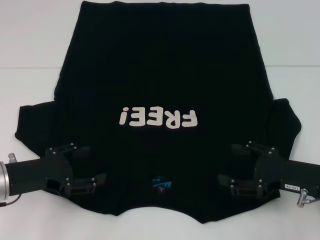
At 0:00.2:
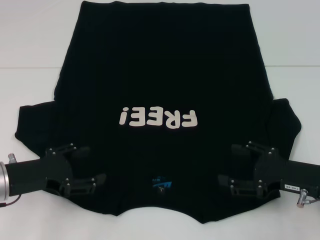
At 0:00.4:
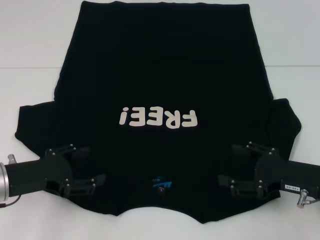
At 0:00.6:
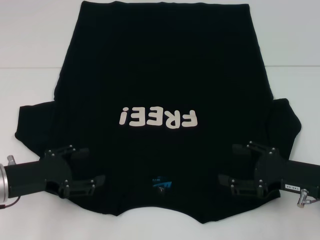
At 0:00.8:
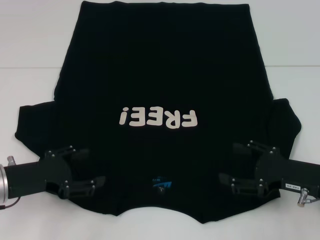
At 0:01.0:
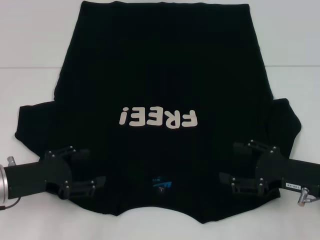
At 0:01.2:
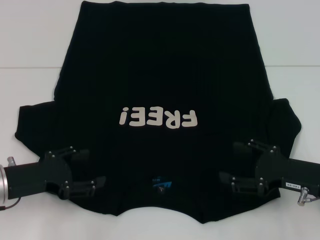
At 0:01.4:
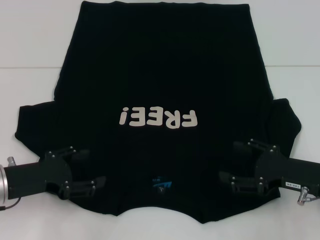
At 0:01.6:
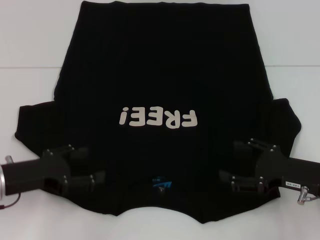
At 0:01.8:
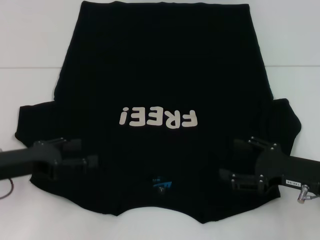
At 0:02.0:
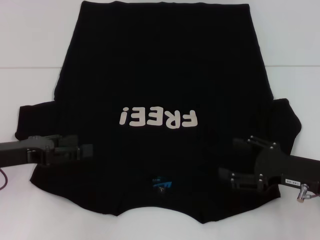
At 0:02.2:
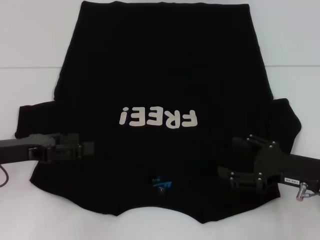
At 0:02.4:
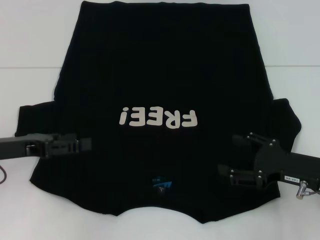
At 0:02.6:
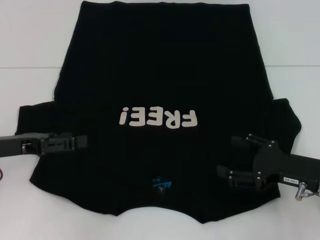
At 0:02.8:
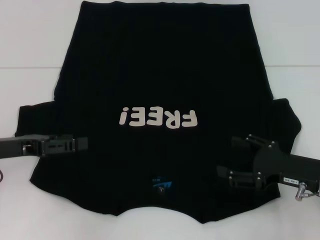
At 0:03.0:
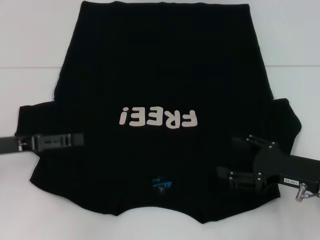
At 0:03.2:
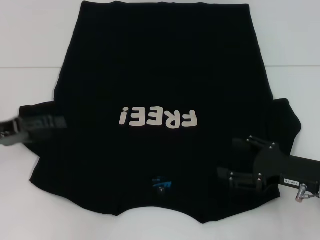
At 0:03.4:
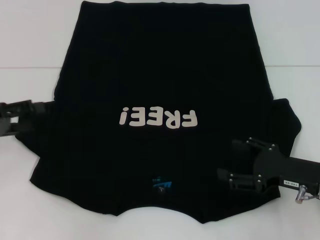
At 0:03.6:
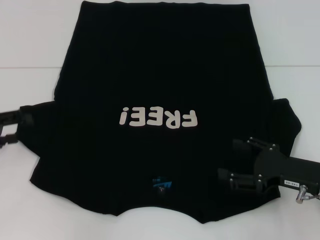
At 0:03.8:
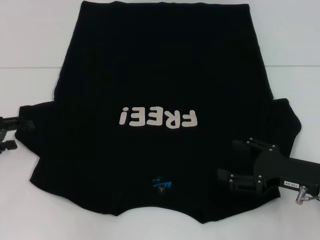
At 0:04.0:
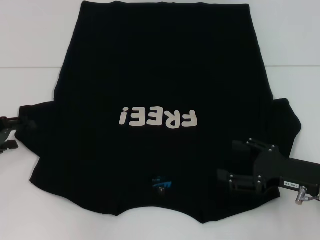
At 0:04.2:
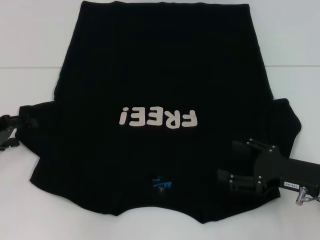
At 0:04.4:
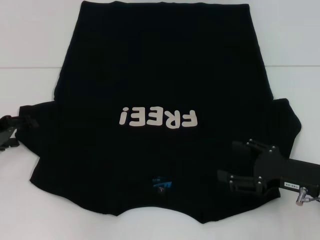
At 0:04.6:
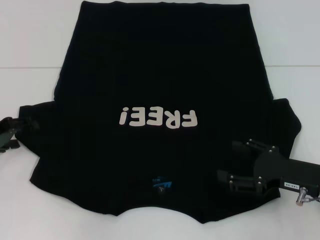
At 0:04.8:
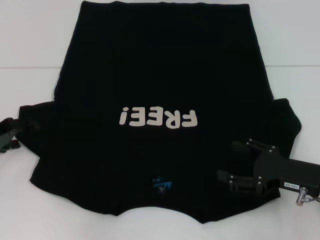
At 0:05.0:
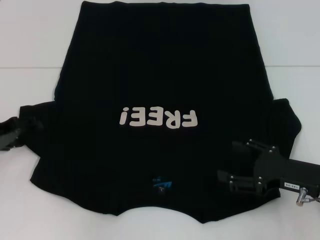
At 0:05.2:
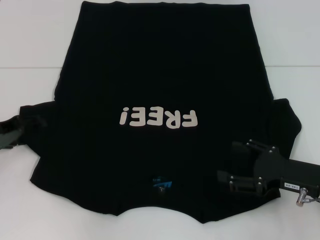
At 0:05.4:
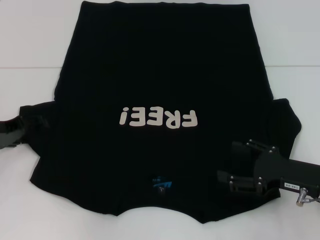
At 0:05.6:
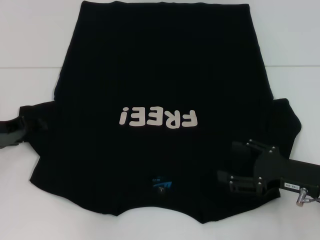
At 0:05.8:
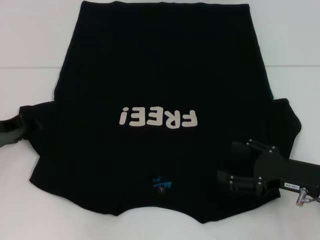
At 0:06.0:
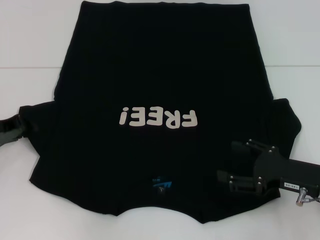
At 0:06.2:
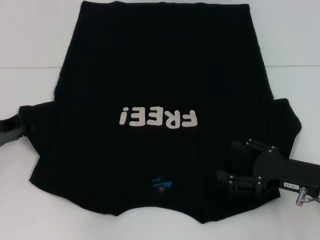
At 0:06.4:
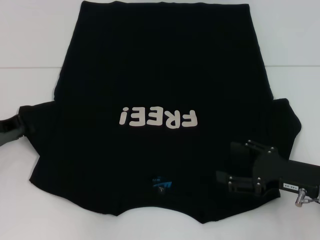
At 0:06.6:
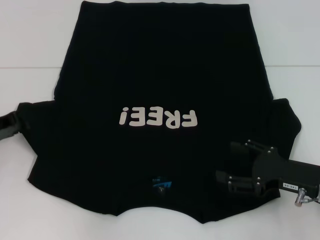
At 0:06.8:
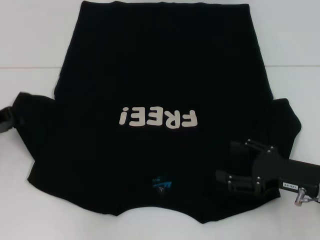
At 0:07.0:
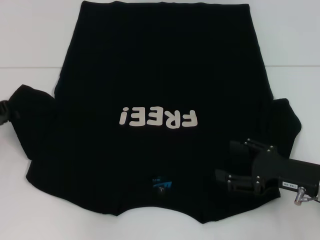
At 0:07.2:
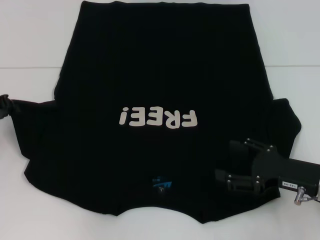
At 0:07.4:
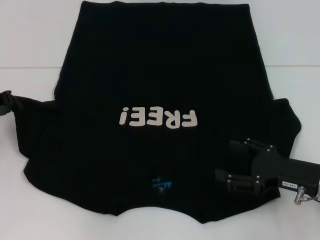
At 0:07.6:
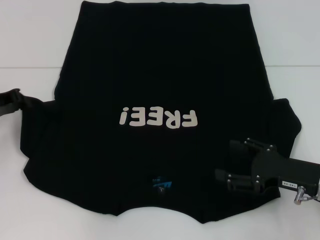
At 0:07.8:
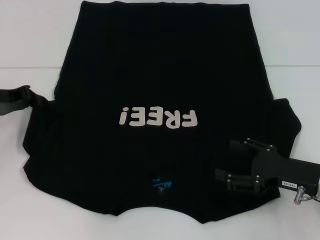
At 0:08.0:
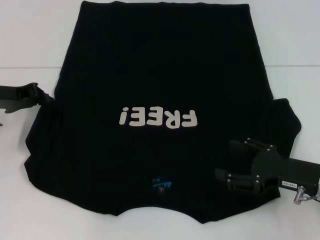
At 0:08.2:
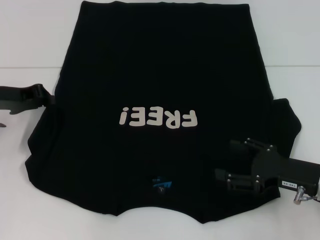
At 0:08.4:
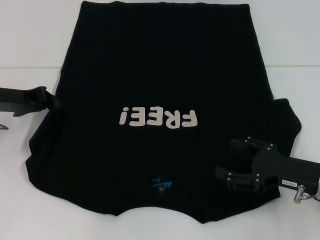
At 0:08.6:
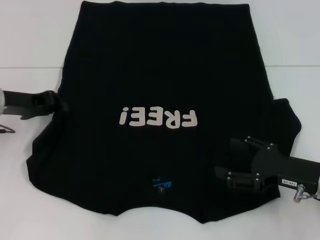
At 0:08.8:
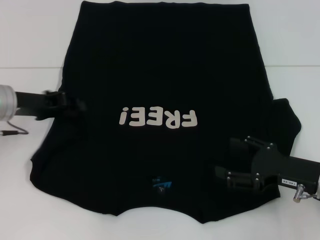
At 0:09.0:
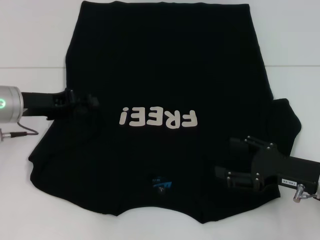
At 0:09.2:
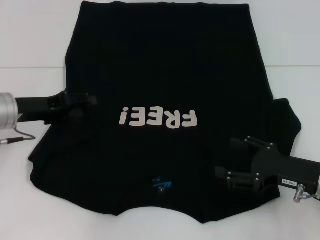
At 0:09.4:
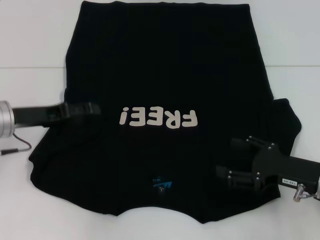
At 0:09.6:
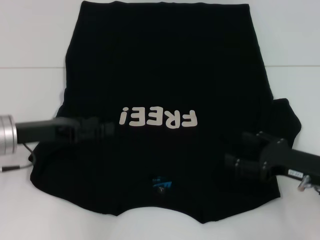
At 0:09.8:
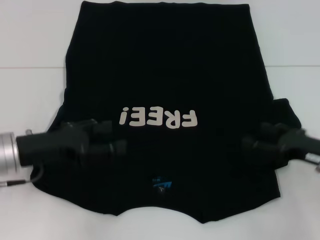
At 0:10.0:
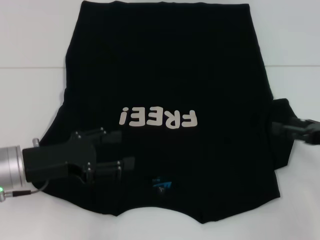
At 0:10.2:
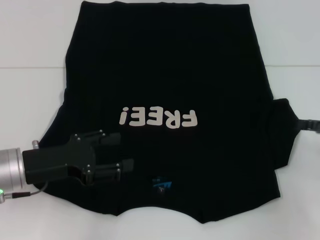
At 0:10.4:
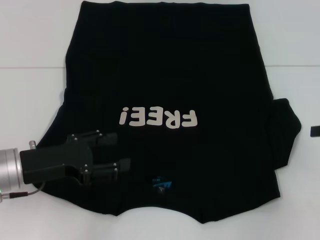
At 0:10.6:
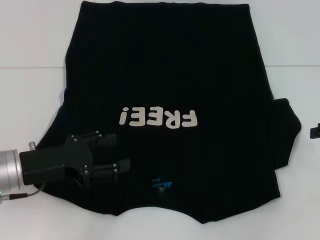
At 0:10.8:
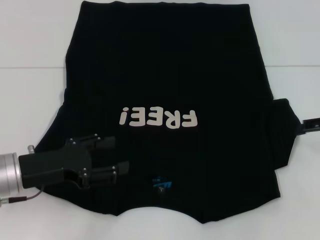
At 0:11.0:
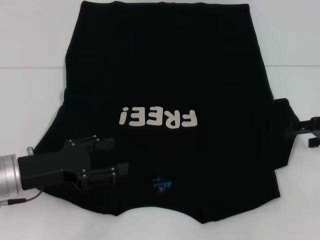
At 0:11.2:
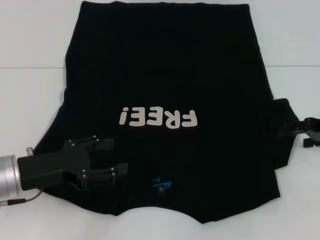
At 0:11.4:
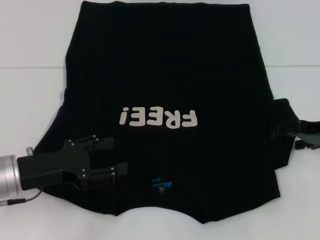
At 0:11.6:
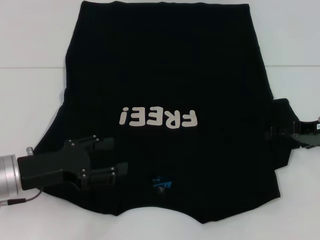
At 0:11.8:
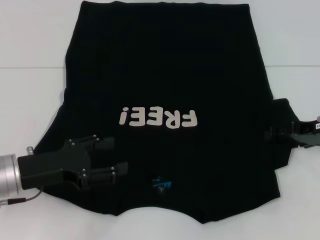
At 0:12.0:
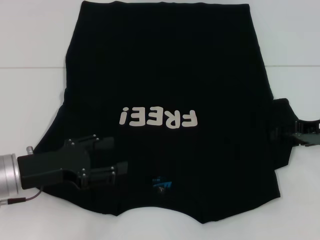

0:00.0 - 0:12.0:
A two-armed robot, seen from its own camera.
Step, 0:00.0 - 0:09.6: Fold the bottom left sleeve with your left hand.
0:00.0 - 0:01.6: The grippers make only small movements.
0:01.6 - 0:03.0: The left gripper ends up about 5 cm from where it was.
0:03.0 - 0:04.4: The left gripper moves about 5 cm.
0:04.4 - 0:06.0: The left gripper closes up.
0:06.0 - 0:07.6: The left gripper closes.
0:07.6 - 0:09.0: The left gripper heads to the right, covering about 5 cm.
0:09.0 - 0:10.4: The right gripper is displaced to the right and upward by approximately 15 cm; the left gripper heads backward, covering approximately 10 cm, and opens its fingers.
0:10.4 - 0:12.0: The right gripper travels to the left and forward by some 10 cm.

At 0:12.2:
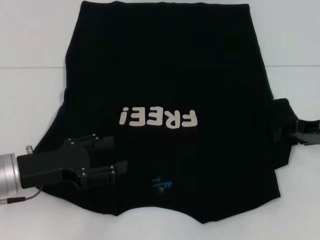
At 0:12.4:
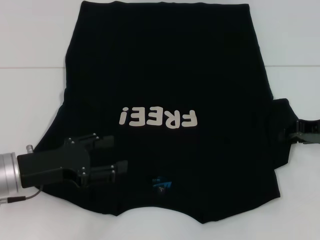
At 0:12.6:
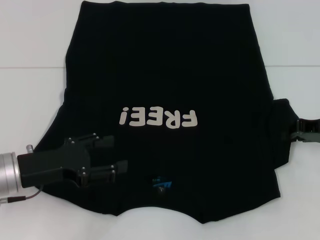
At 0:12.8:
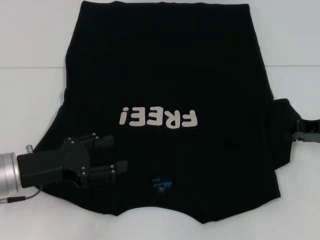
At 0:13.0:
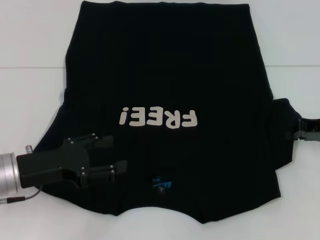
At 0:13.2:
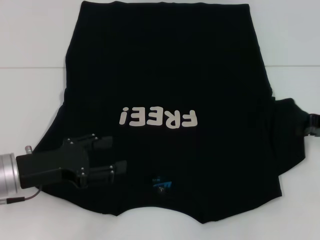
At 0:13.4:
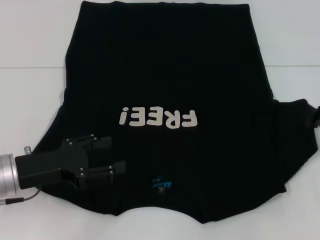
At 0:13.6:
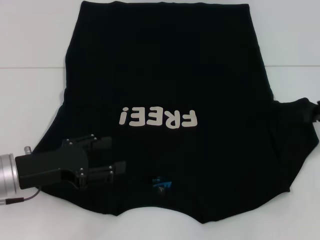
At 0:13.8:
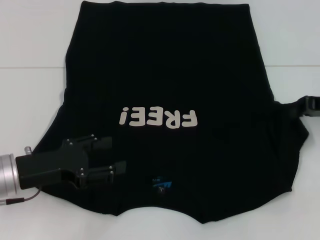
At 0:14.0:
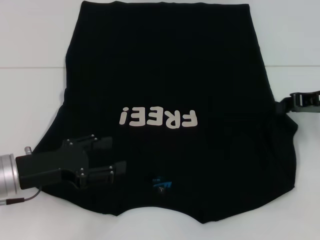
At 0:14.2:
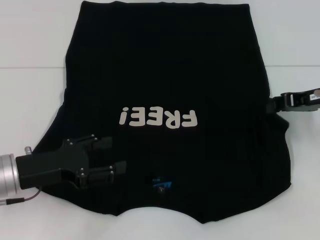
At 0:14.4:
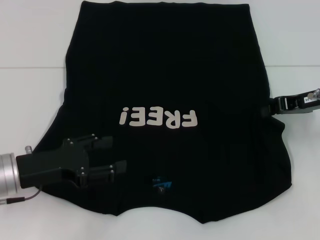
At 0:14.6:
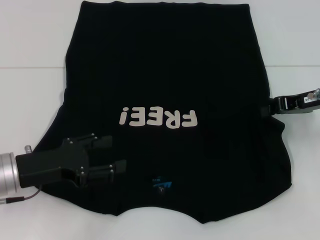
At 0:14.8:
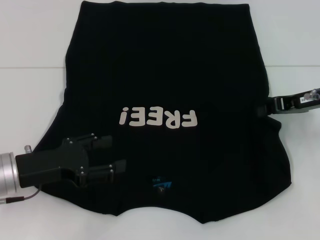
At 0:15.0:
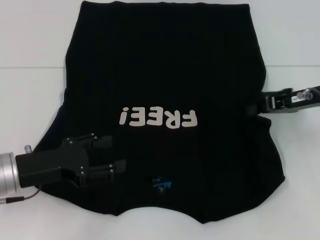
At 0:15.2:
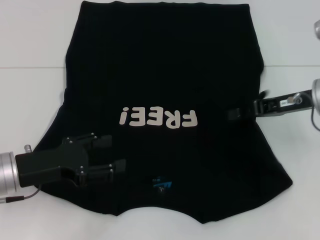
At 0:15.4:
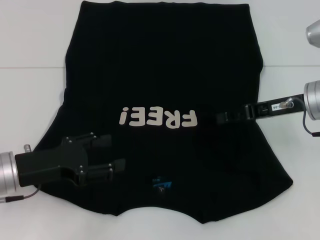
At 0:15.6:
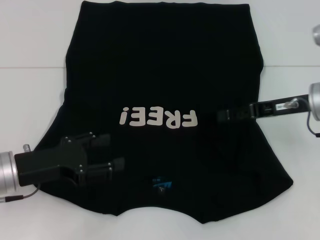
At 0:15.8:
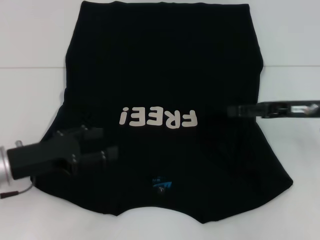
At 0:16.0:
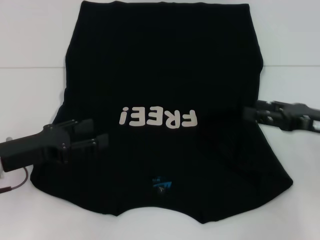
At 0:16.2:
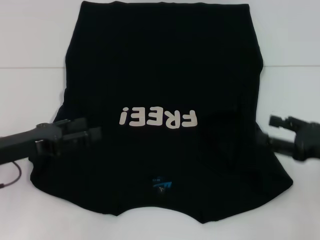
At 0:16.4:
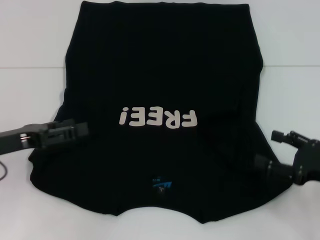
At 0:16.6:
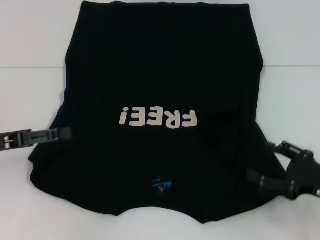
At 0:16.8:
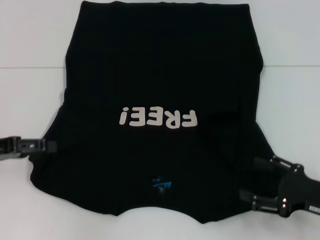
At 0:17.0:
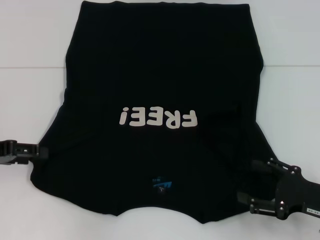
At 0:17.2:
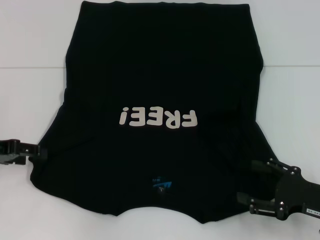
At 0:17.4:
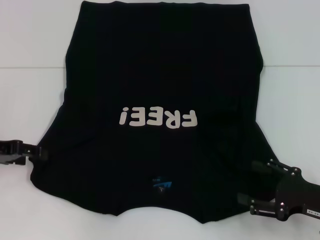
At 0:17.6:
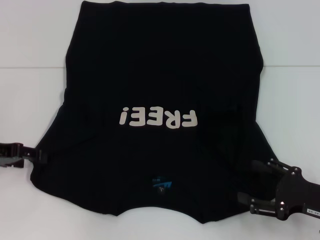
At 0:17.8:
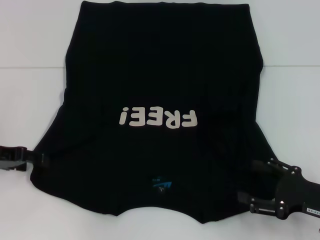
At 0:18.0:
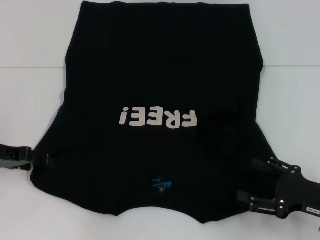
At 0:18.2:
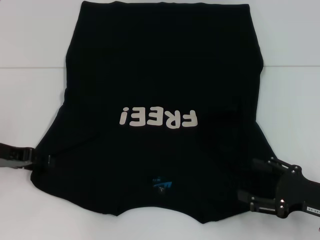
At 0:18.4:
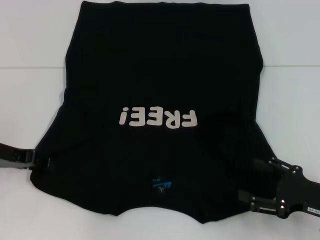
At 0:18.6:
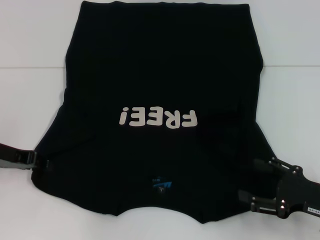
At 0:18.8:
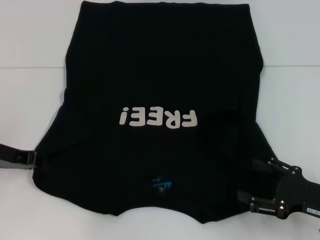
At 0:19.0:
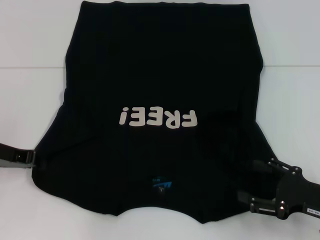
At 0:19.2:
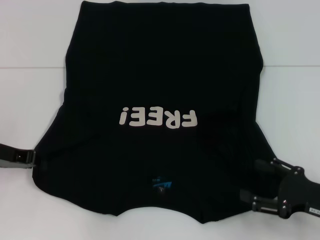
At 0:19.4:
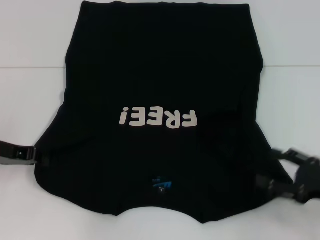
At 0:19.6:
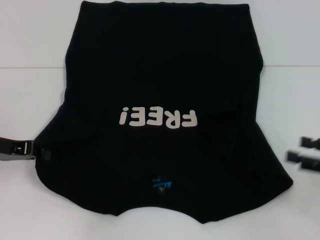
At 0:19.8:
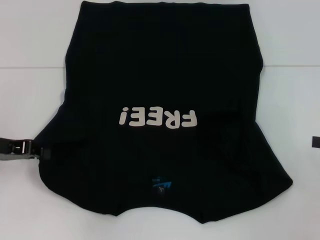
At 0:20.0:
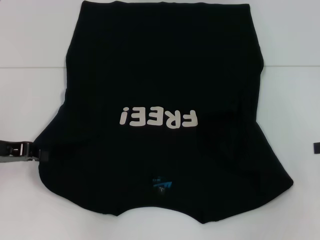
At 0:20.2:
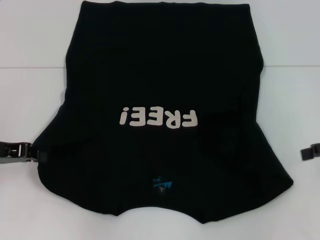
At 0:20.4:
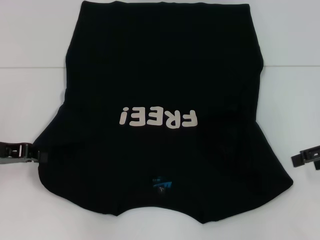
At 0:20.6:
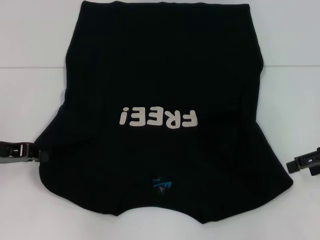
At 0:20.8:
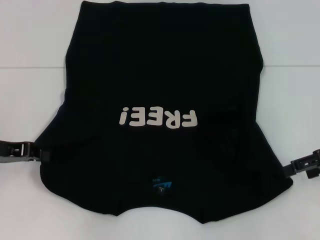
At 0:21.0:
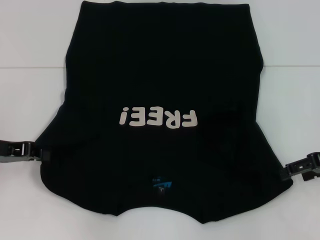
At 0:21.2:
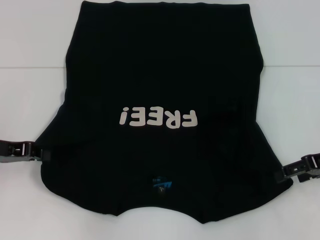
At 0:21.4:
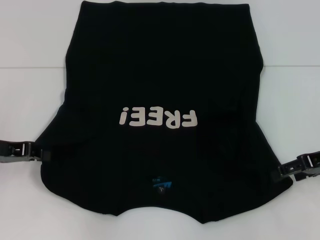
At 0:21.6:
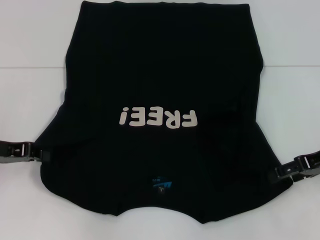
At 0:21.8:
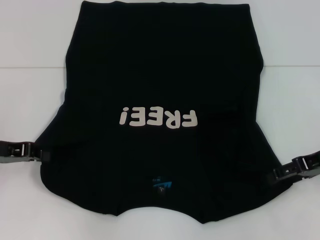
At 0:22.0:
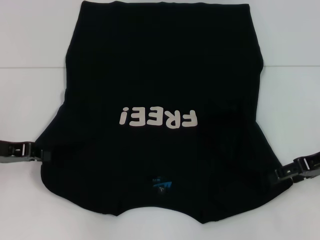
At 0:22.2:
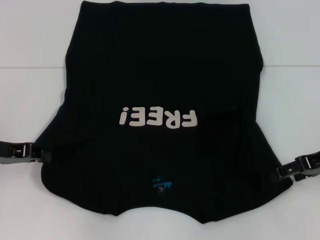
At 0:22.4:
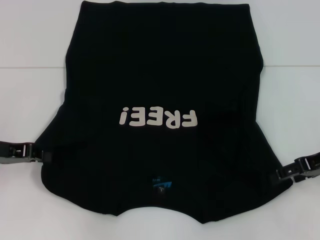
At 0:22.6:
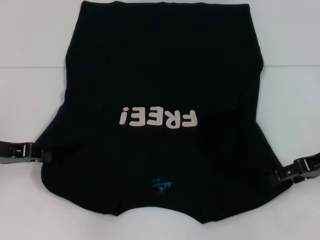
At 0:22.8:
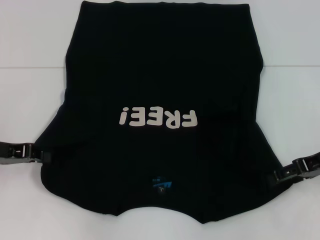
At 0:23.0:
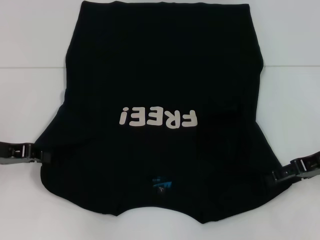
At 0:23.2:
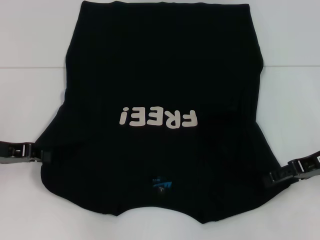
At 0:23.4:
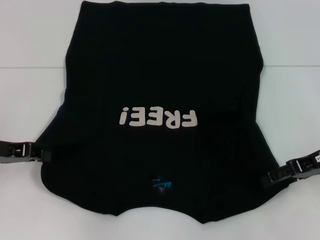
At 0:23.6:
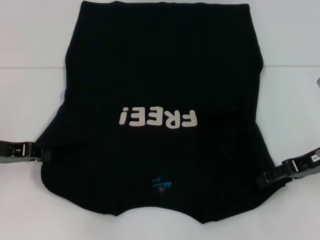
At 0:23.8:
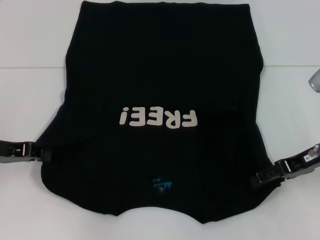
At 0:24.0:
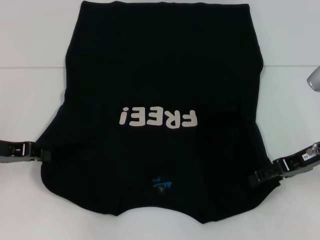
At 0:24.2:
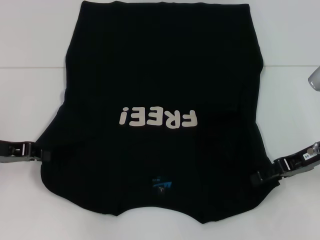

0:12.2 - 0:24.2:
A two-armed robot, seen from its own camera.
Step, 0:12.2 - 0:15.6: Fold the bottom right sleeve with your right hand.
Step, 0:15.8 - 0:19.6: Grab the bottom left corner with your left hand.
0:12.2 - 0:13.8: The right gripper closes its fingers.
0:13.8 - 0:15.2: The right gripper heads to the left, covering about 5 cm.
0:15.2 - 0:16.6: The right gripper is displaced backward and downward by roughly 15 cm, and opens its fingers. The left gripper travels to the left by roughly 5 cm.
0:18.2 - 0:19.8: The right gripper moves to the right and upward, approximately 15 cm, while the left gripper closes.
0:19.8 - 0:21.2: The right gripper moves to the left and forward, roughly 10 cm.
0:21.2 - 0:24.2: The grippers make only small movements.
